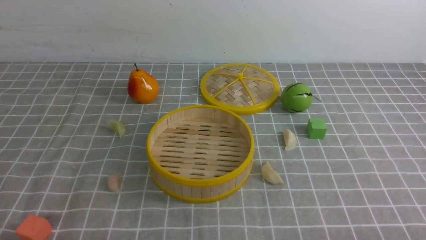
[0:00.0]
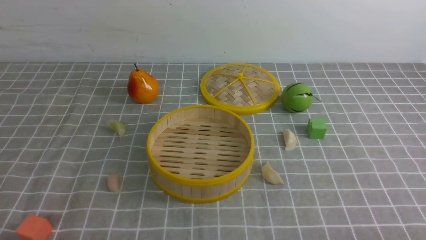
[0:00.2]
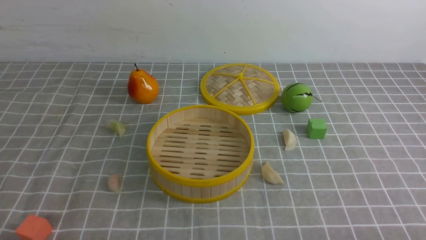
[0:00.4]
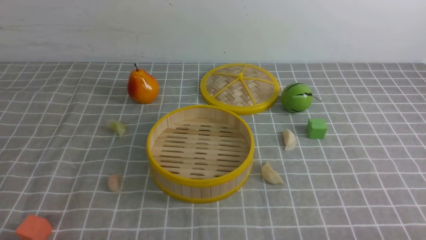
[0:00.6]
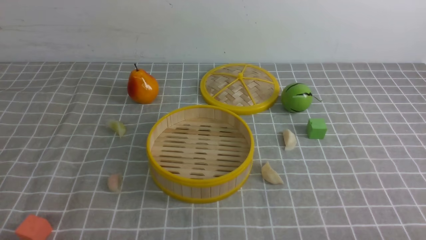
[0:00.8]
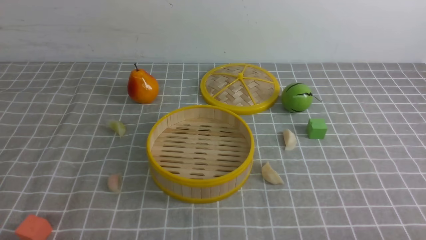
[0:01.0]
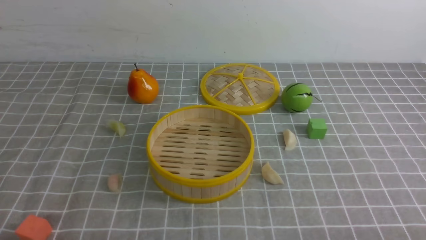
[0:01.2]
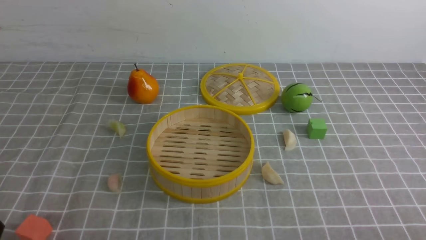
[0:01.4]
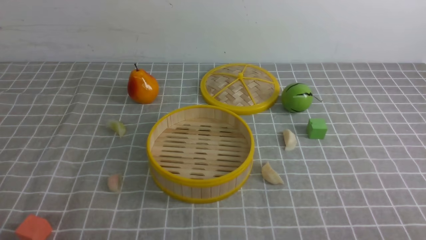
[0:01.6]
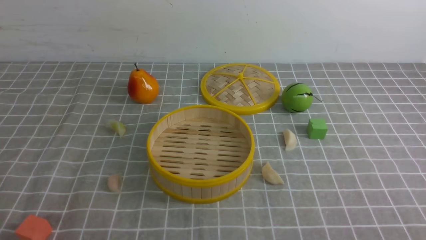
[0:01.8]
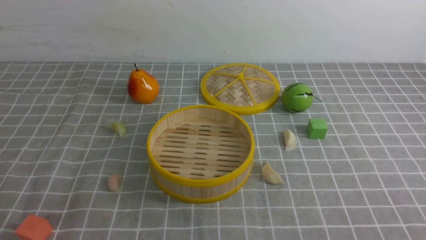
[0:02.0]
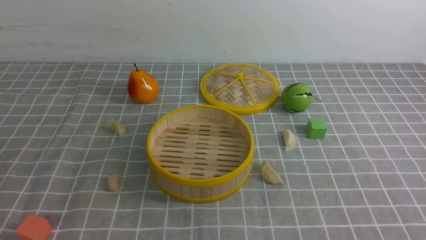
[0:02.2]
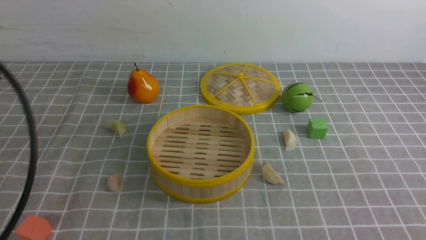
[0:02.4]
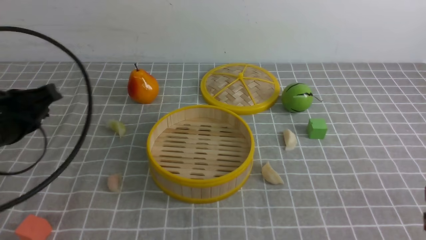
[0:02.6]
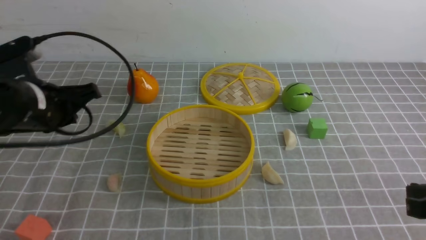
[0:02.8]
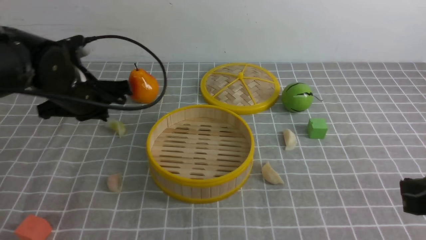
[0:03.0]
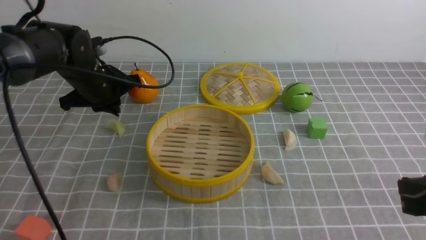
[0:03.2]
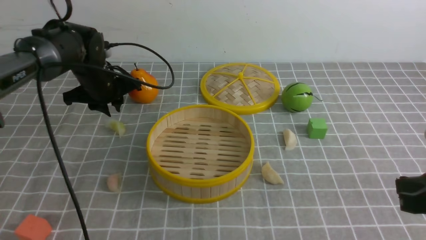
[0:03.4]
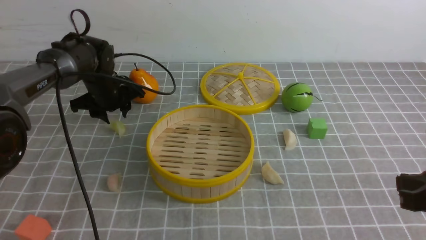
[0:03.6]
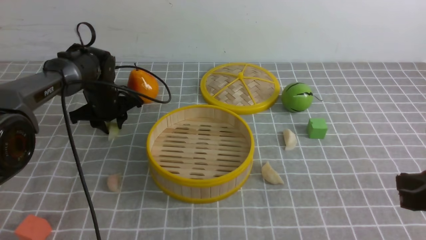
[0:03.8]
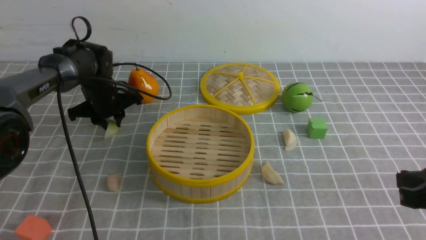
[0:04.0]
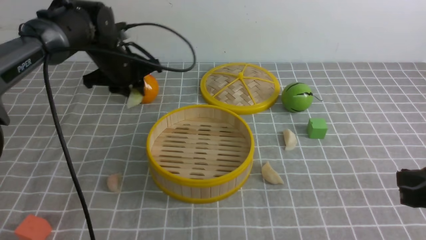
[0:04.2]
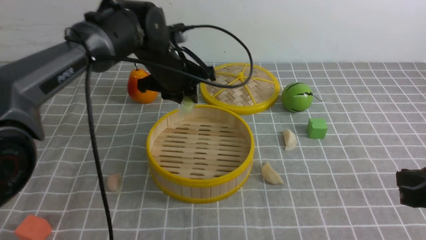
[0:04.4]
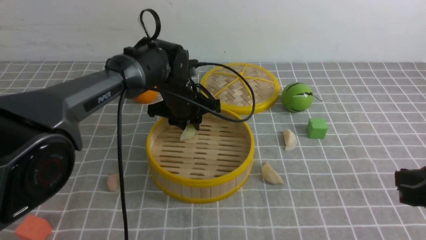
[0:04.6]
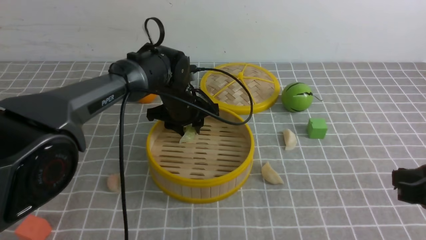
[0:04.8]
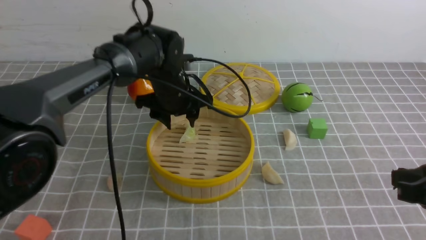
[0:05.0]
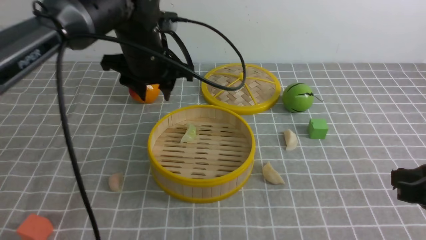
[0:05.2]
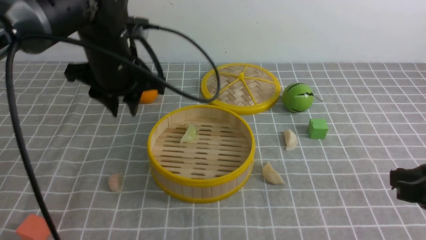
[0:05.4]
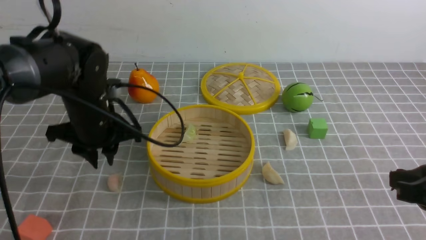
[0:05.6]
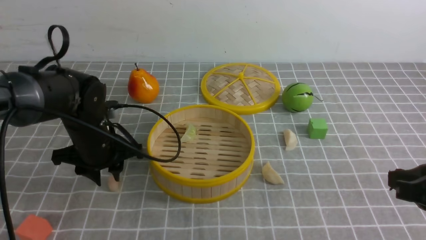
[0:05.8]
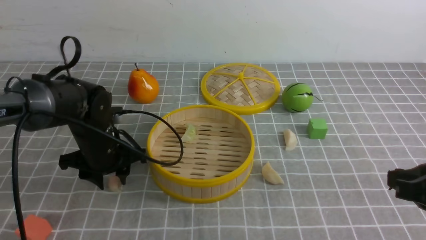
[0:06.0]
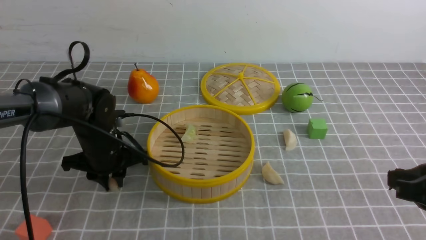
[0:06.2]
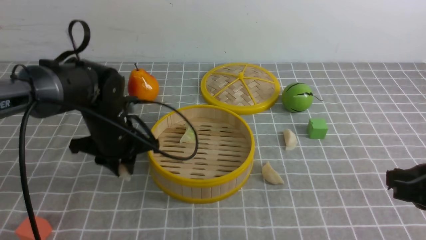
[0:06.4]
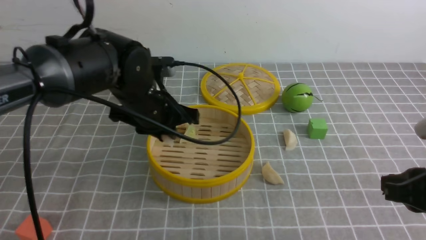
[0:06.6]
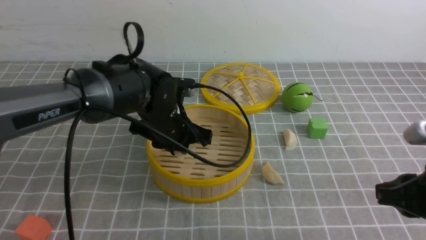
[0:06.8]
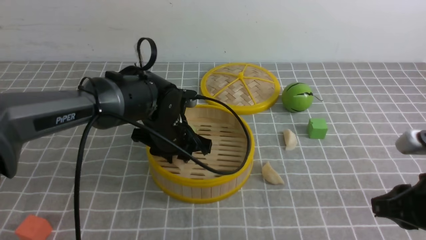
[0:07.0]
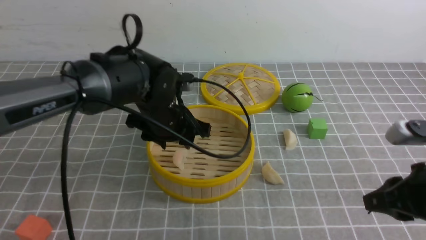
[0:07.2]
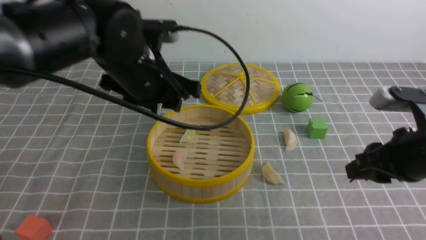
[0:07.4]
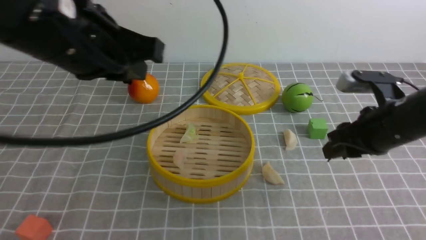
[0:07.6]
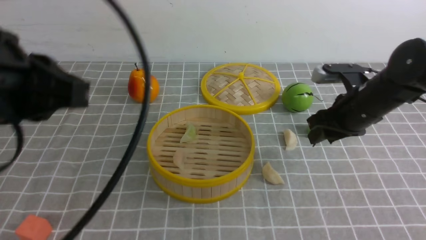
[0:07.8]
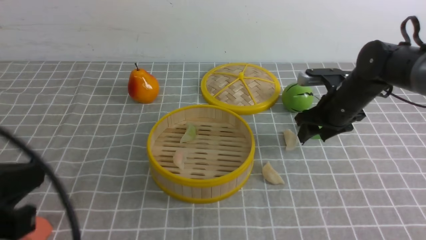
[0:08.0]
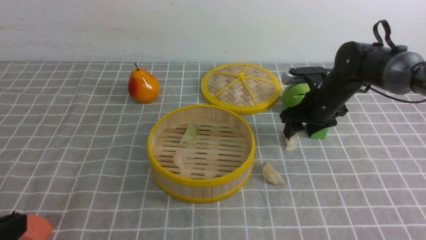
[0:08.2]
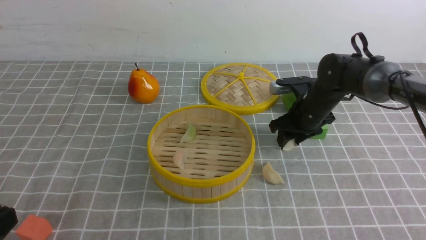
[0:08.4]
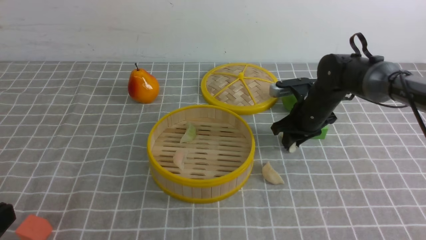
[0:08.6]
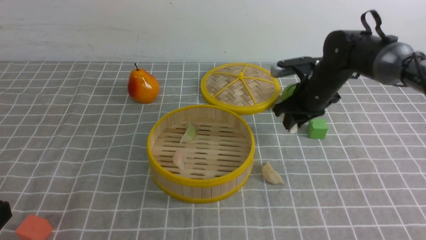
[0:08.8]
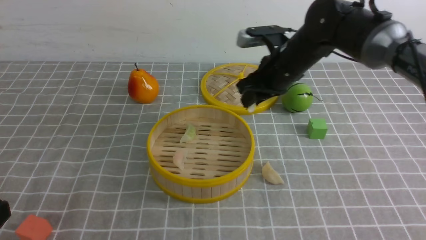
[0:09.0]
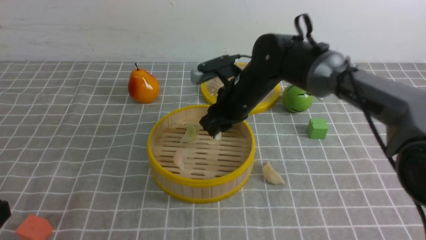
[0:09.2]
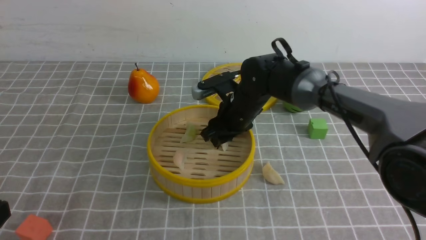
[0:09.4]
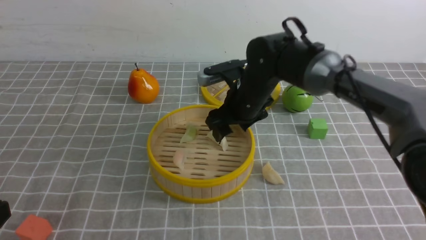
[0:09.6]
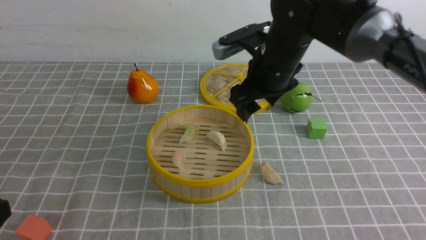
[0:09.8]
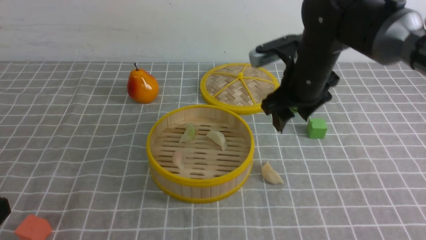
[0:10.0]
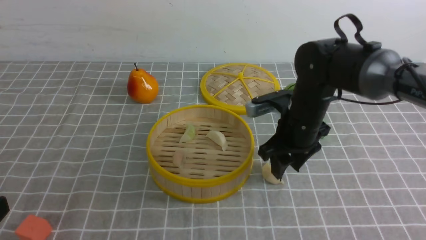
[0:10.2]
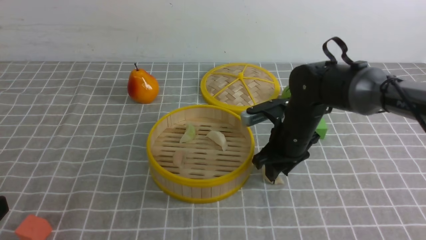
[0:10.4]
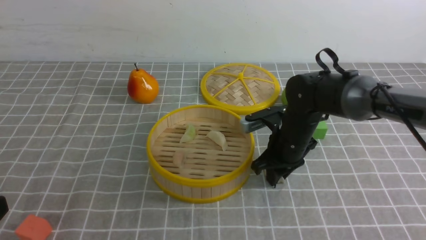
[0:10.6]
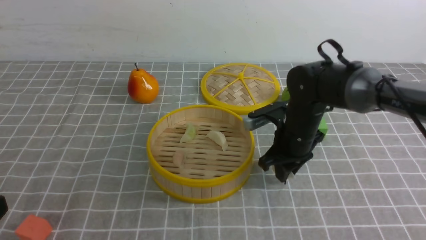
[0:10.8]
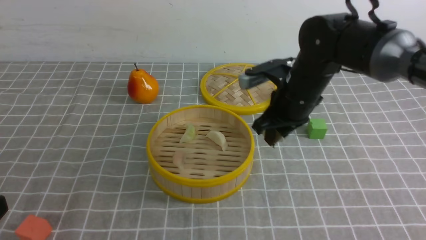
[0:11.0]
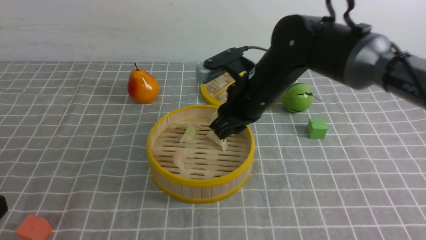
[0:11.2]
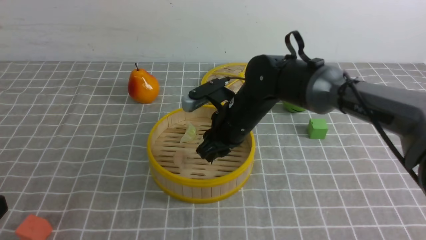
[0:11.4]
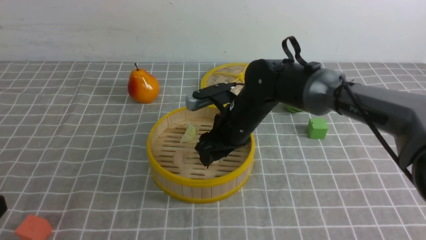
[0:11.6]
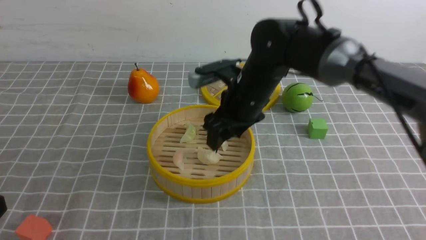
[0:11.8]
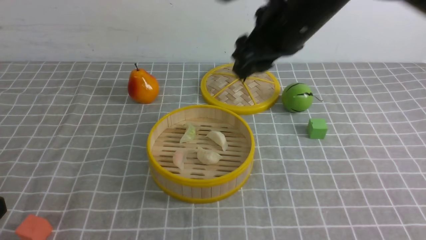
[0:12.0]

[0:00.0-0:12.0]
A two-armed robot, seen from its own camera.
Task of the whole recording: put the dumplings into the steamer on the table with the grey tablecloth.
Step, 0:00.0 to 0:04.0: use the left arm to grab a dumpling.
Step, 0:04.2 to 0:05.0: use the left arm to put the dumpling into the steamer.
Step, 0:05.2 to 0:06.2: use the left arm to grab a dumpling.
Step, 0:06.4 to 0:07.2: use the left arm to put the dumpling into the steamer.
Step, 0:07.4 to 0:08.6: use the right arm to grab a dumpling.
Step, 0:08.8 to 0:09.6: use the right arm to put the dumpling into the steamer.
Step, 0:09.8 to 0:10.8: use the right arm to grab a dumpling.
Step, 0:11.0 to 0:11.8: use the right arm to put the dumpling into the steamer.
0:01.6 to 0:03.0: The right gripper travels forward by some 10 cm, and closes its fingers. Meanwhile the left gripper goes roughly 30 cm forward, and closes up.
0:03.0 to 0:04.4: The left gripper shifts approximately 15 cm to the right and forward, and opens up.
0:04.4 to 0:06.0: The left gripper moves backward, to the left and downward, roughly 15 cm.
0:06.0 to 0:07.6: The right gripper moves forward, approximately 15 cm, and opens up. Meanwhile the left gripper travels upward and backward by roughly 25 cm, and closes its fingers.
0:07.6 to 0:09.0: The right gripper moves to the left and forward, approximately 20 cm, while the left gripper goes roughly 25 cm backward, downward and to the left, and closes.
0:09.0 to 0:10.4: The right gripper heads backward and downward, covering some 10 cm, and opens and closes again.
0:10.4 to 0:12.0: The right gripper is displaced upward by roughly 20 cm.

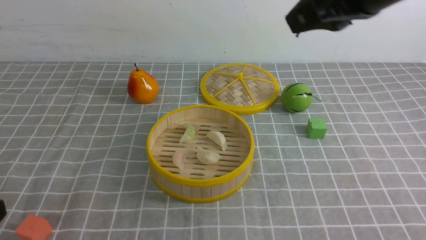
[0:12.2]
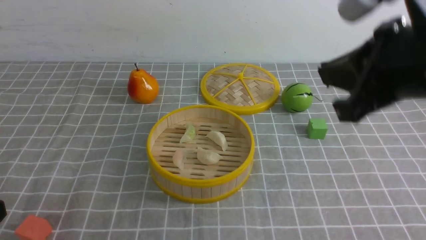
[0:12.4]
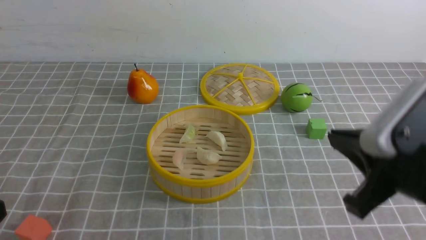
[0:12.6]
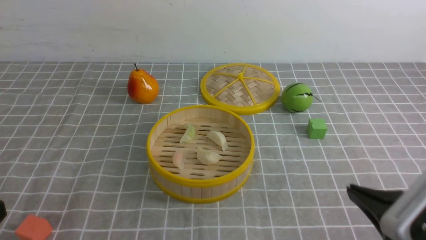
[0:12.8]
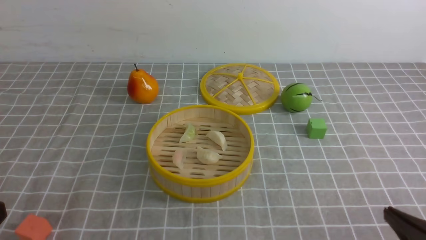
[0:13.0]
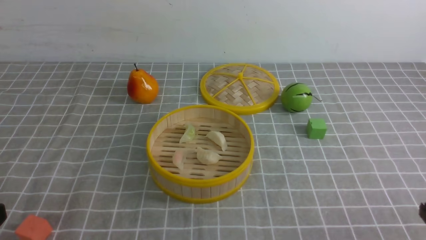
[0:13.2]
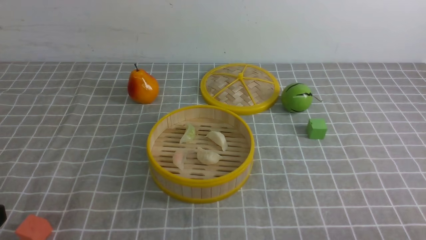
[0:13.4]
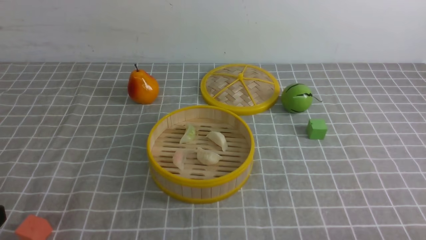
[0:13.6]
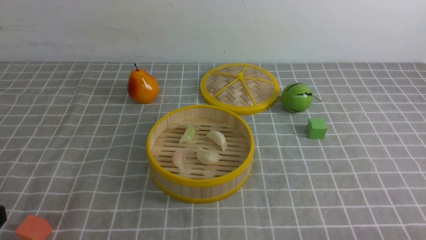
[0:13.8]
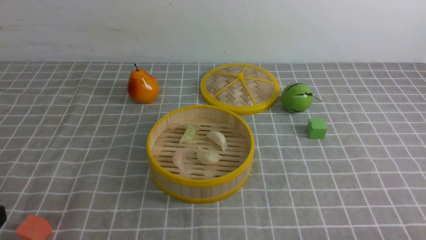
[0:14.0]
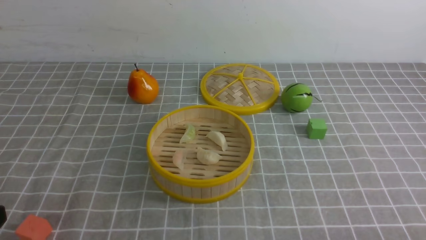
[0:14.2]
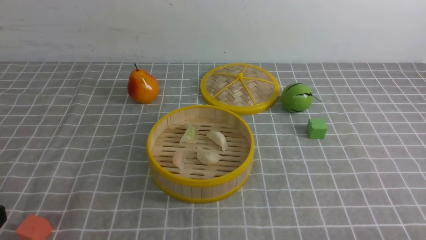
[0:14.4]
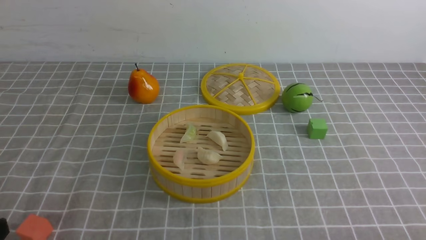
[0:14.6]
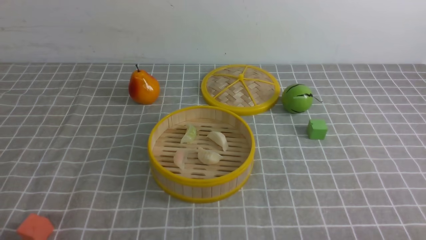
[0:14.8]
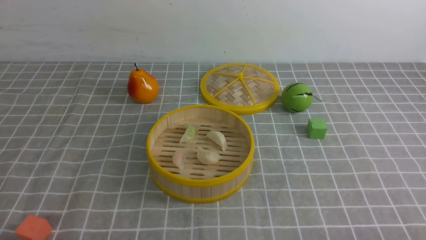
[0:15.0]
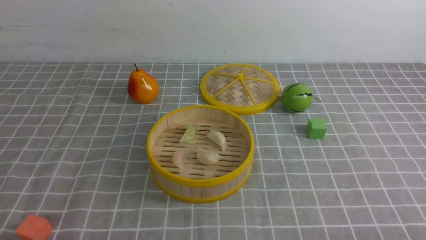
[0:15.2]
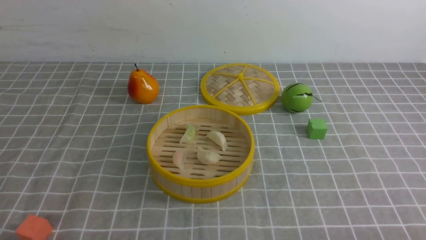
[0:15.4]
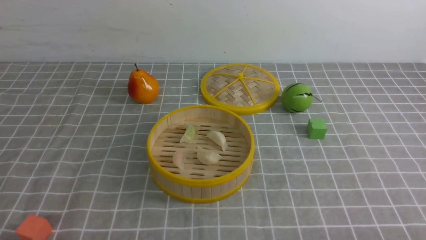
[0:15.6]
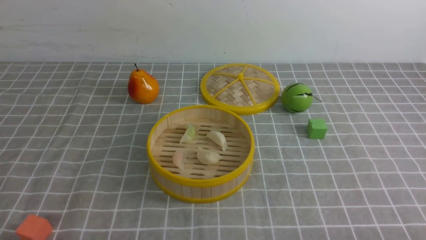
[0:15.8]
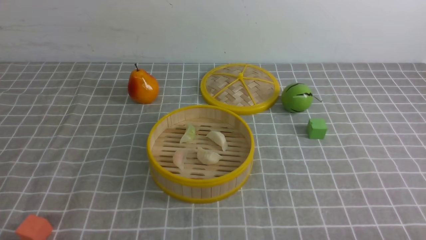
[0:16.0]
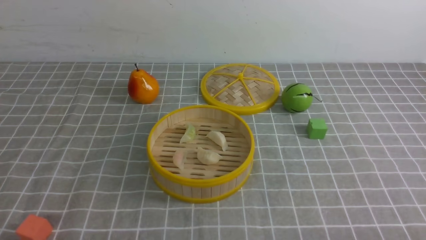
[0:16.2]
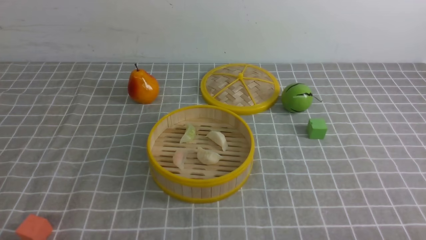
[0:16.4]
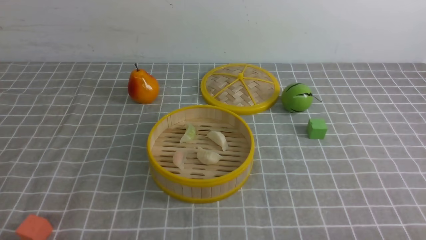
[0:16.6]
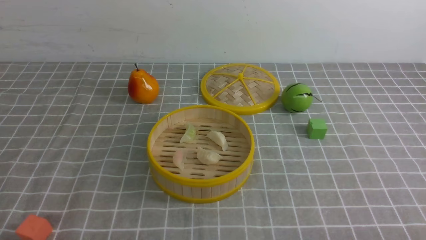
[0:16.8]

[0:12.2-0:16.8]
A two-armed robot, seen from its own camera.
Task of the whole recording: put the dumplings into the steamer on the table with the grey tablecloth.
0:12.2 to 0:13.8: The right gripper is displaced downward, backward and to the right by some 35 cm.
0:15.2 to 0:16.8: Both grippers stay about where they are.
